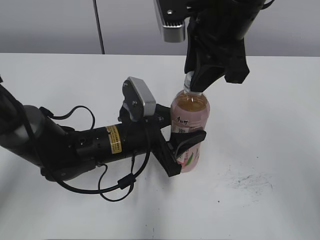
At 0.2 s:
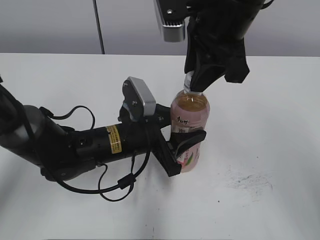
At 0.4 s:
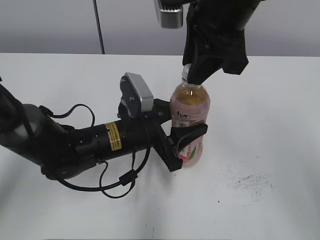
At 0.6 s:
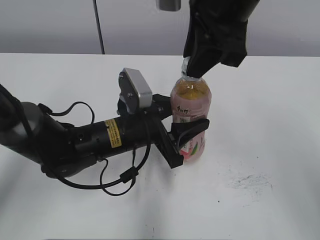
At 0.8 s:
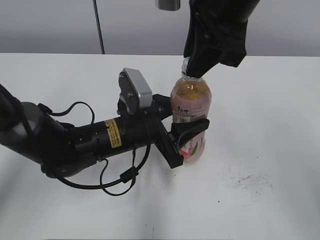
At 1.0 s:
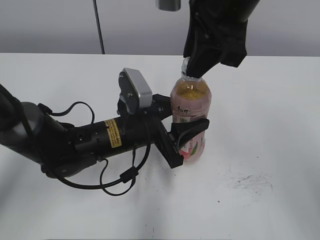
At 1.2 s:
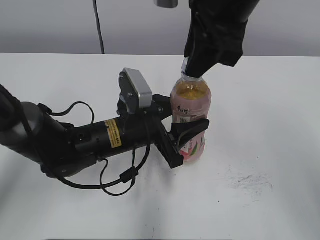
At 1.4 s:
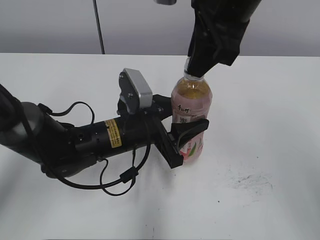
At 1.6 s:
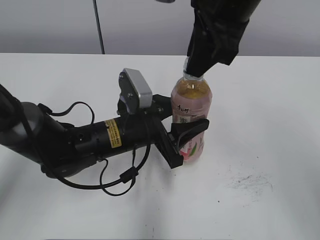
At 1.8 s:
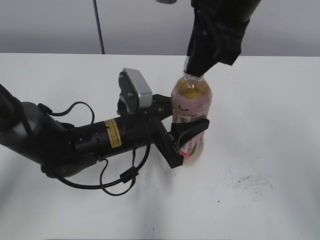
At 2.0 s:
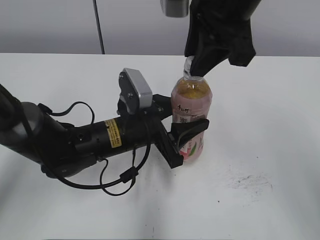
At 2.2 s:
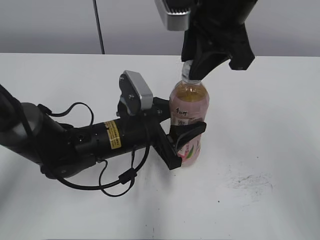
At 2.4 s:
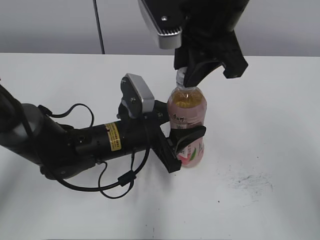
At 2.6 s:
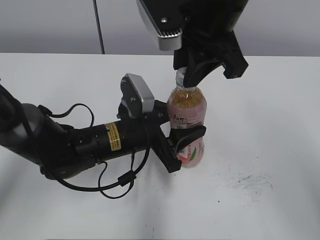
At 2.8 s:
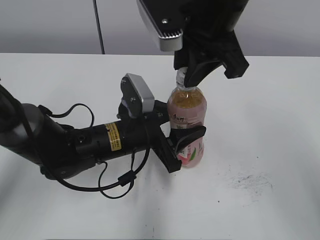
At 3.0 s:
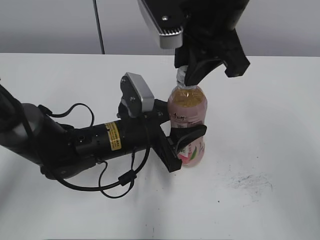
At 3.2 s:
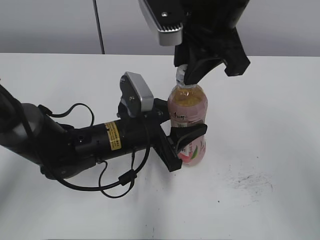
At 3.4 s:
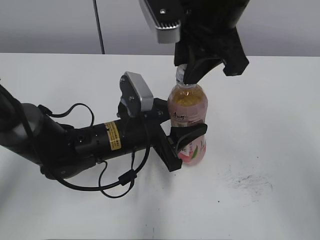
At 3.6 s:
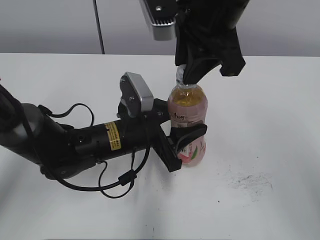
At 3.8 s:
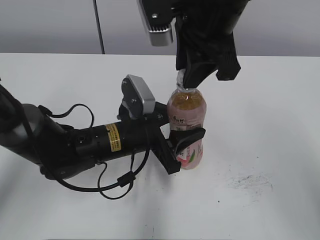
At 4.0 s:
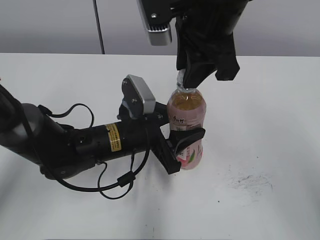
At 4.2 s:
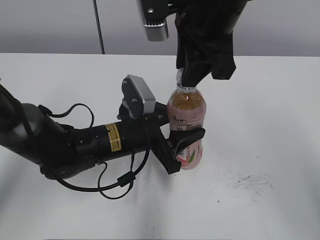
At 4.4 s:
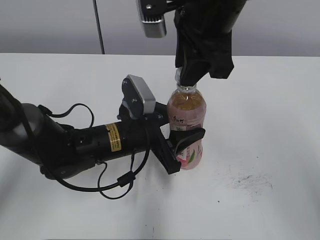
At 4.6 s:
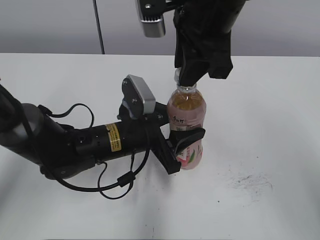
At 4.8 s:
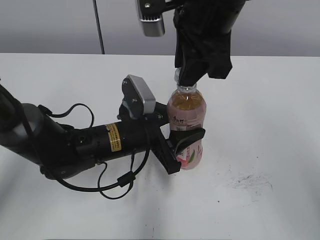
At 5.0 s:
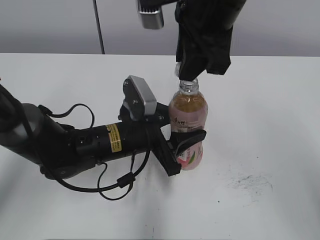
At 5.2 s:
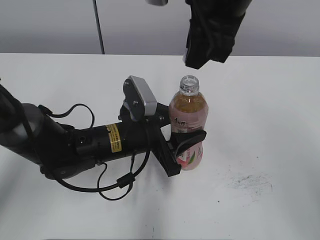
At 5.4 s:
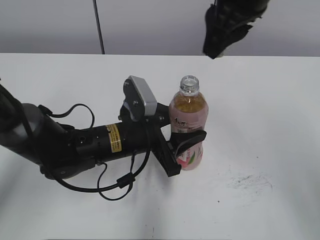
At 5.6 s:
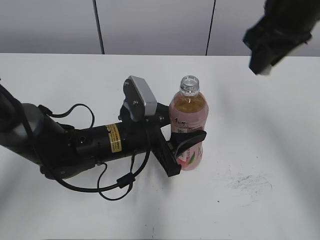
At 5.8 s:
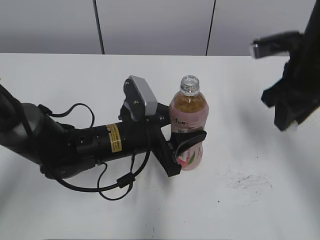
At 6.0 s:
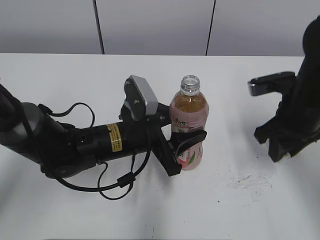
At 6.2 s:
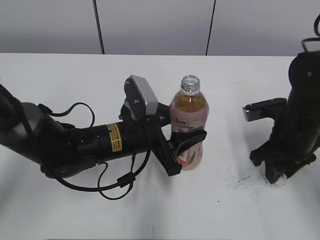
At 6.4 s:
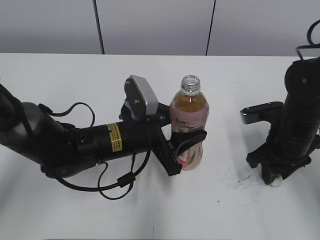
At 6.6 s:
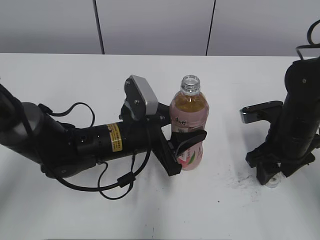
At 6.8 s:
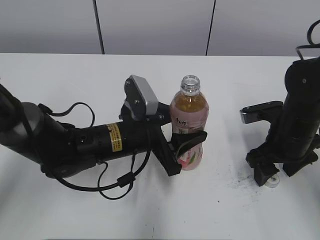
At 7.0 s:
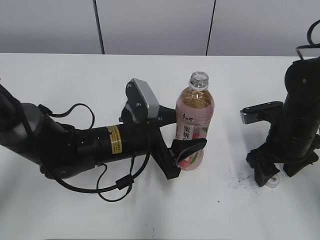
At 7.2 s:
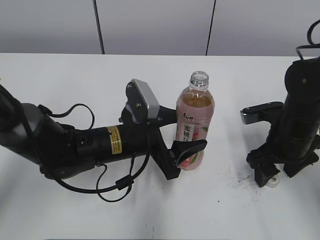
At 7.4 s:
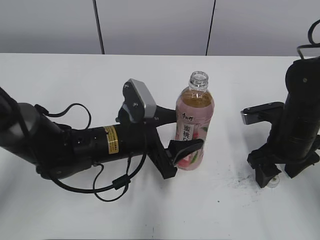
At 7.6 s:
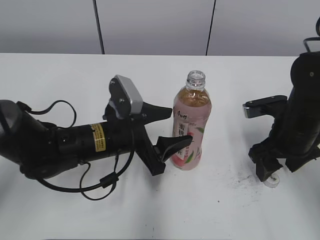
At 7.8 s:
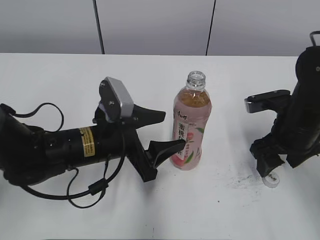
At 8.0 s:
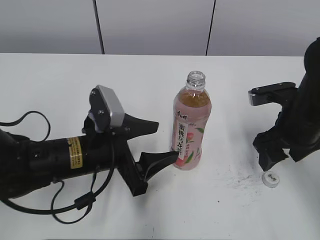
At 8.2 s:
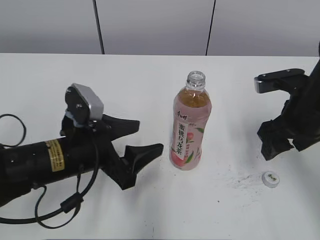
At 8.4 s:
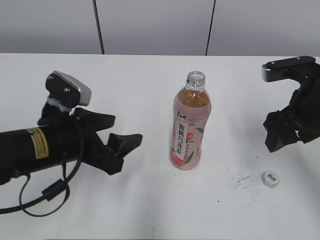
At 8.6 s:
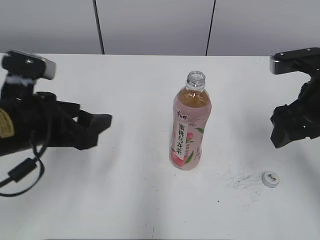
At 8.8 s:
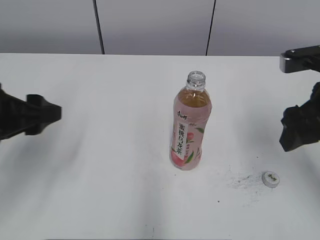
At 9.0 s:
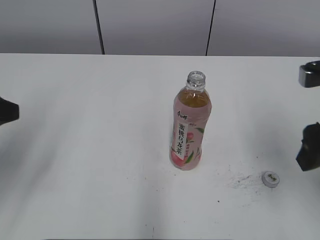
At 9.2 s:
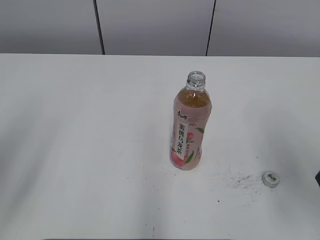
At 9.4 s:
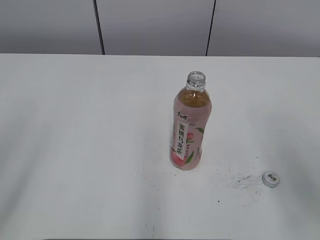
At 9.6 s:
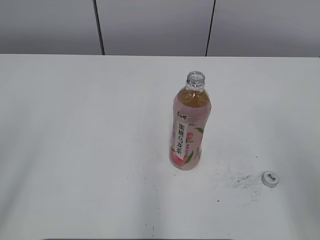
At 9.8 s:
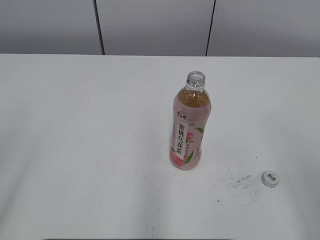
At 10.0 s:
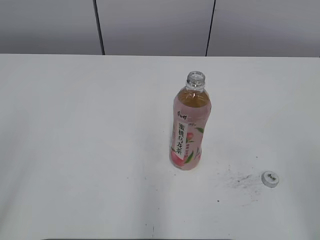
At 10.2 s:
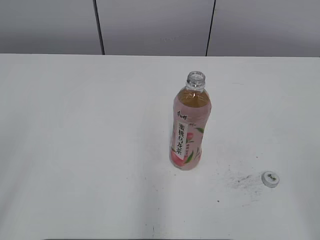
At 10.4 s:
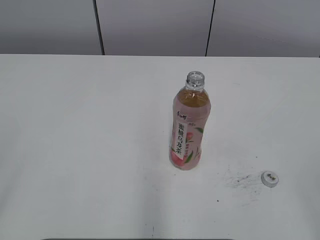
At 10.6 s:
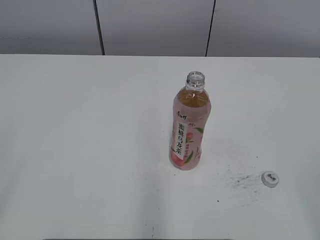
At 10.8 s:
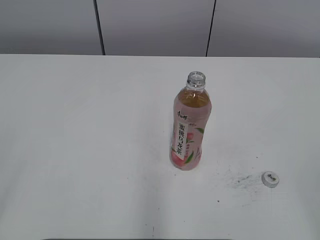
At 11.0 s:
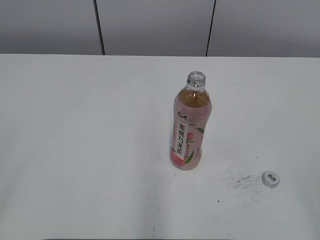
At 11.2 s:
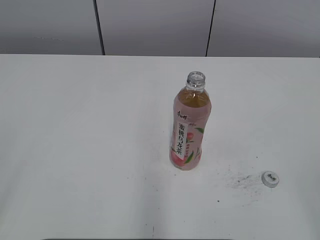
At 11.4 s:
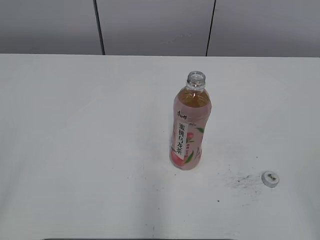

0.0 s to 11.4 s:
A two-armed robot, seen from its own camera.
Step, 0.0 to 4.8 s: Secure the Peach Oolong Tea with the left hand.
Step, 5.0 to 6.4 s: Place the bottle cap on the right.
Step, 6.6 to 7.0 s: Place the Peach Oolong Tea with the left hand.
0.0 to 1.4 s: The grippers move only a little.
2.8 to 4.2 s: There are only small adjustments of the grippers.
4.2 to 5.6 s: The right gripper moves to the right, approximately 10 cm.
5.6 to 7.2 s: The right gripper is displaced downward by roughly 20 cm, and opens up. The left gripper opens up.
7.2 to 8.6 s: The left gripper is displaced to the left, upward and backward by some 15 cm; the right gripper shifts about 10 cm upward.
8.6 to 10.0 s: The right gripper travels backward by some 25 cm, while the left gripper travels backward, to the left and upward by approximately 25 cm.

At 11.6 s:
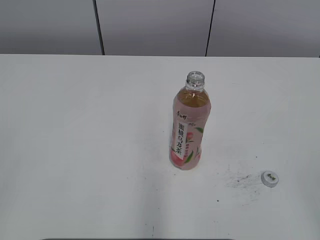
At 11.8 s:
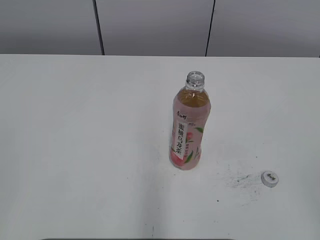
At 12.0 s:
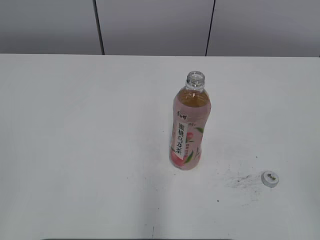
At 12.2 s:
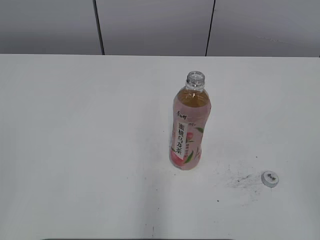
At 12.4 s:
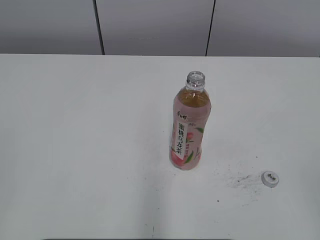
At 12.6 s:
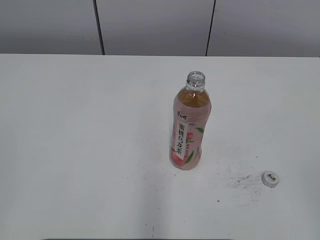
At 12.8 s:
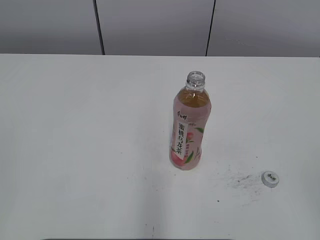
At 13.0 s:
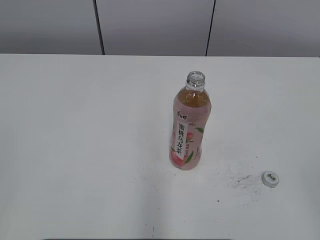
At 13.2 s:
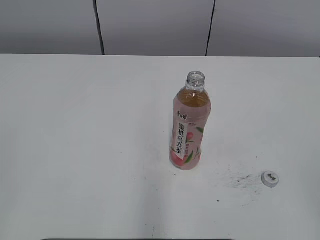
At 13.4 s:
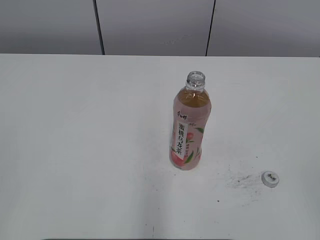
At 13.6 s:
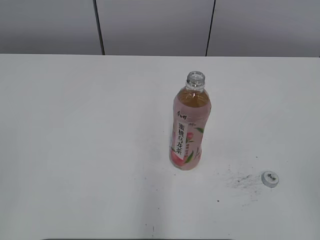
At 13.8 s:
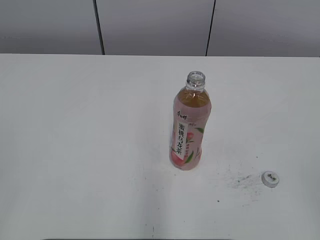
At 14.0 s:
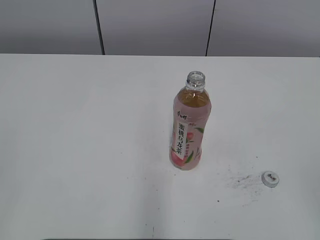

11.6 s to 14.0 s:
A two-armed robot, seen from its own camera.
12.8 to 14.0 s: The two grippers keep their place.
